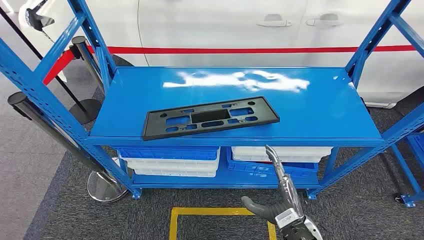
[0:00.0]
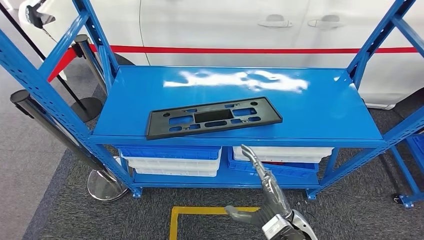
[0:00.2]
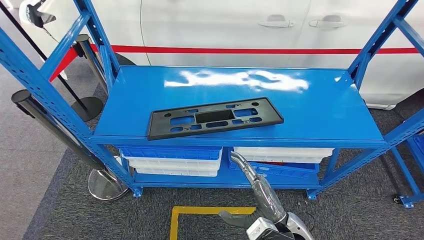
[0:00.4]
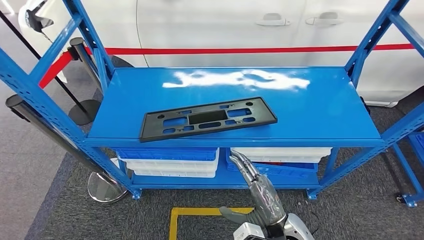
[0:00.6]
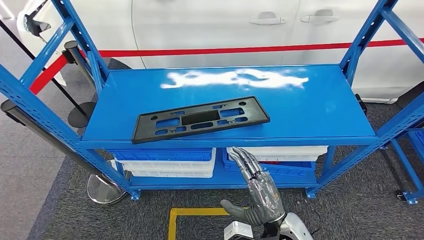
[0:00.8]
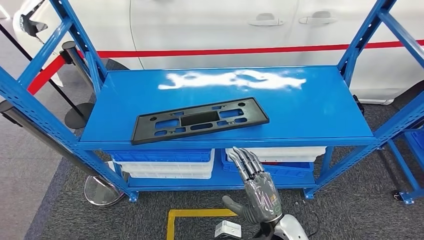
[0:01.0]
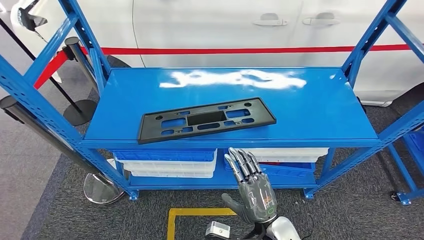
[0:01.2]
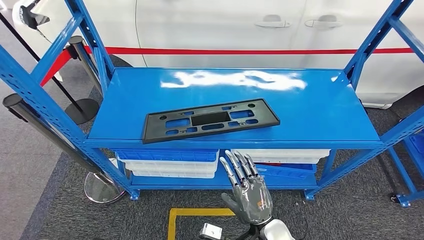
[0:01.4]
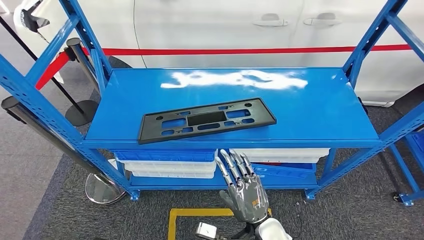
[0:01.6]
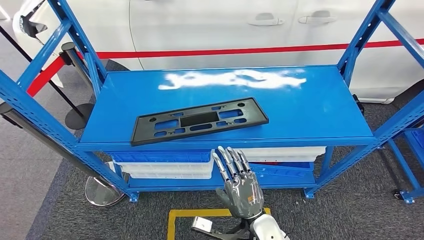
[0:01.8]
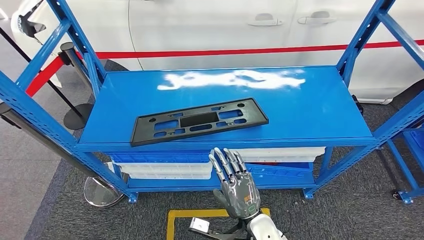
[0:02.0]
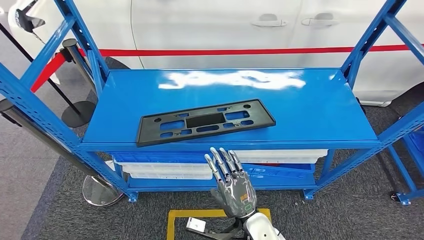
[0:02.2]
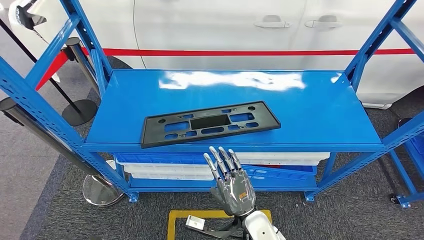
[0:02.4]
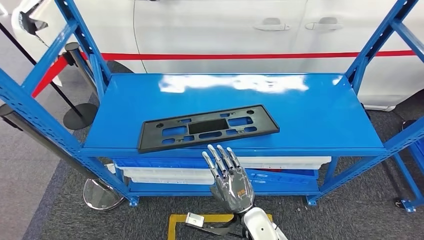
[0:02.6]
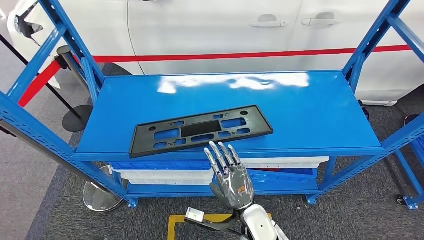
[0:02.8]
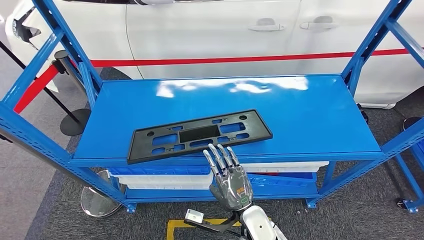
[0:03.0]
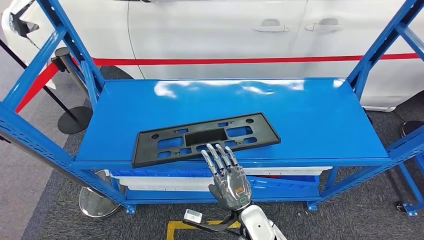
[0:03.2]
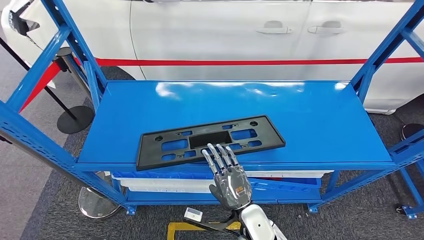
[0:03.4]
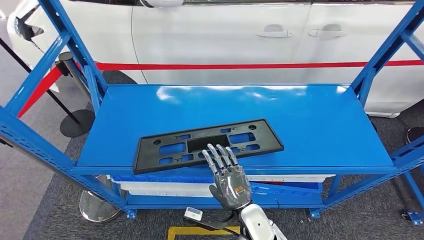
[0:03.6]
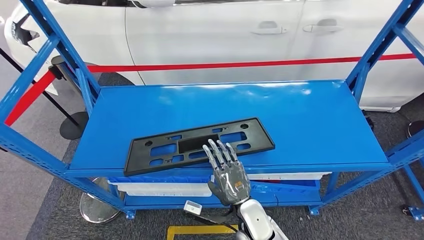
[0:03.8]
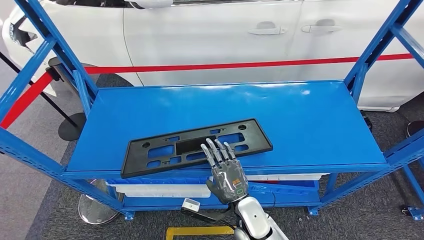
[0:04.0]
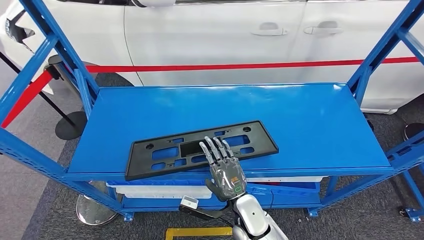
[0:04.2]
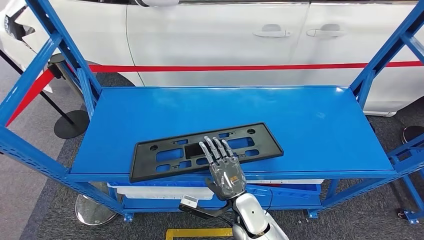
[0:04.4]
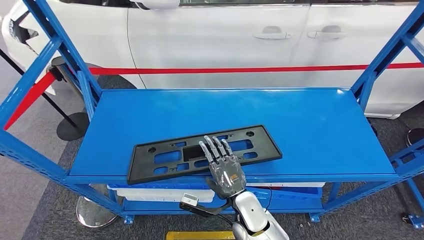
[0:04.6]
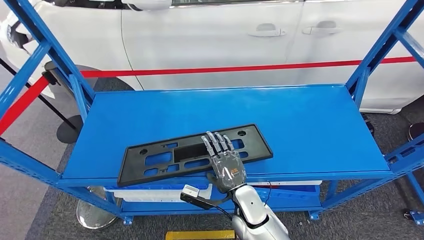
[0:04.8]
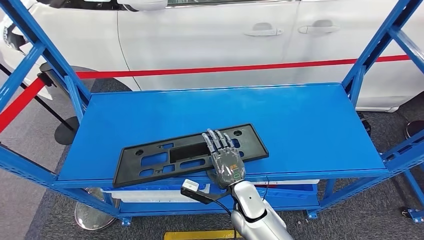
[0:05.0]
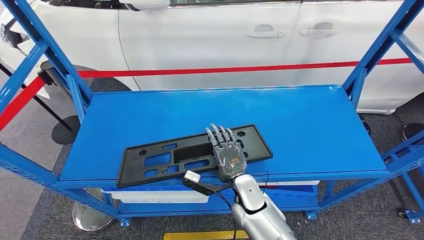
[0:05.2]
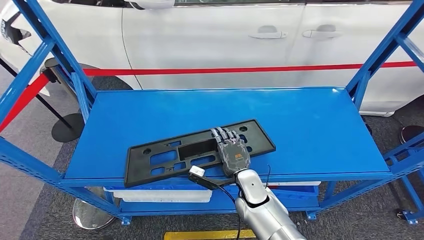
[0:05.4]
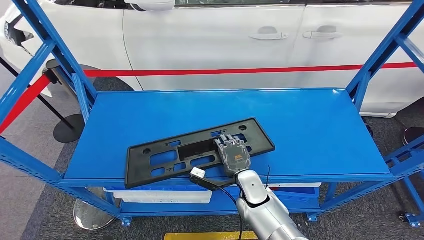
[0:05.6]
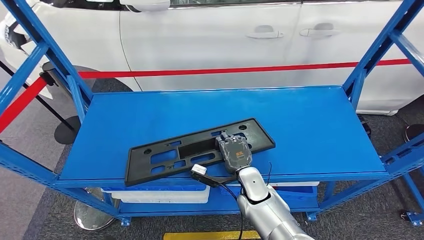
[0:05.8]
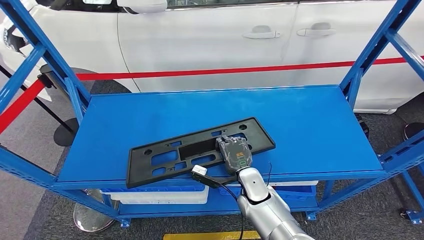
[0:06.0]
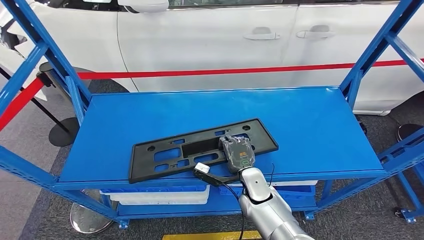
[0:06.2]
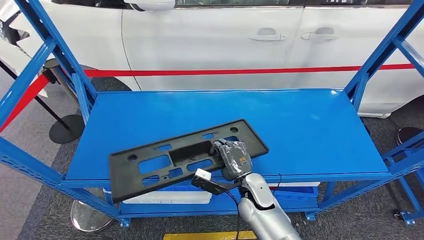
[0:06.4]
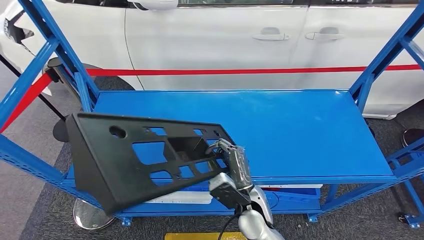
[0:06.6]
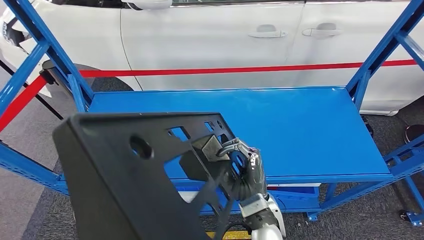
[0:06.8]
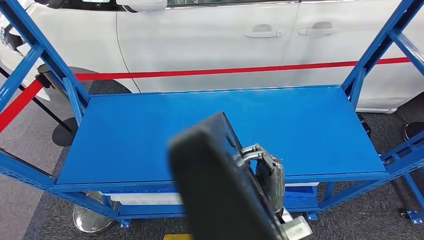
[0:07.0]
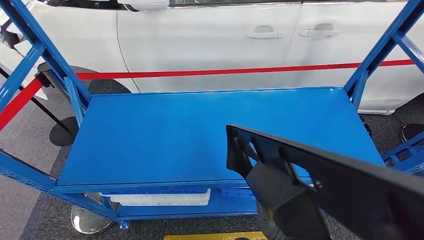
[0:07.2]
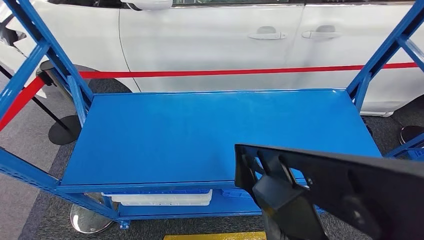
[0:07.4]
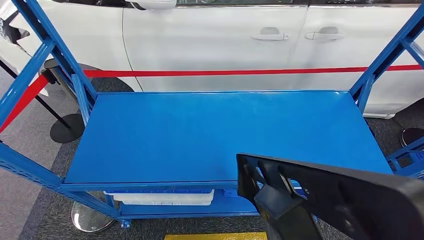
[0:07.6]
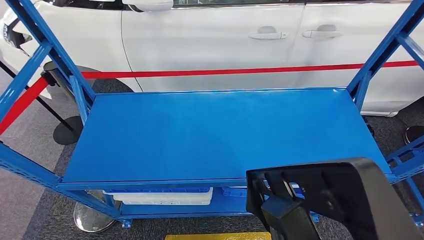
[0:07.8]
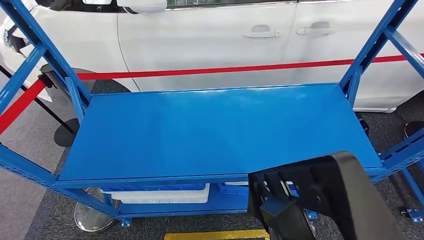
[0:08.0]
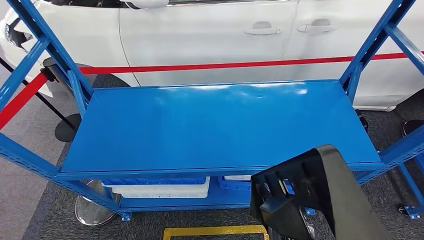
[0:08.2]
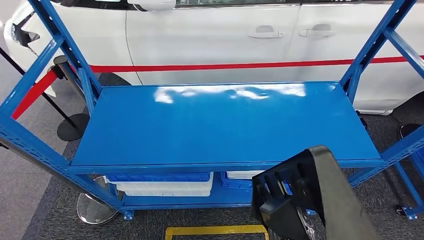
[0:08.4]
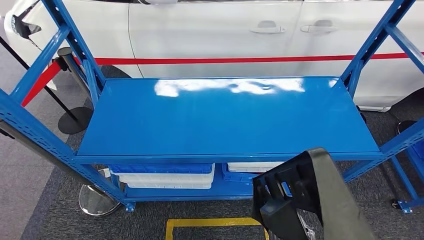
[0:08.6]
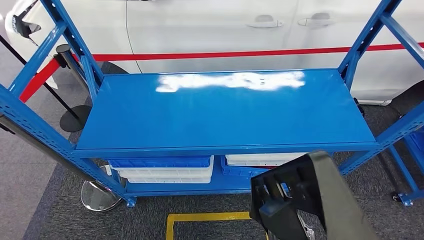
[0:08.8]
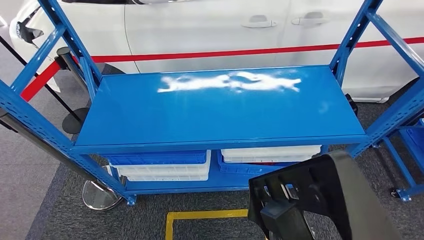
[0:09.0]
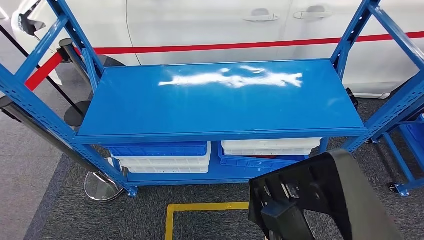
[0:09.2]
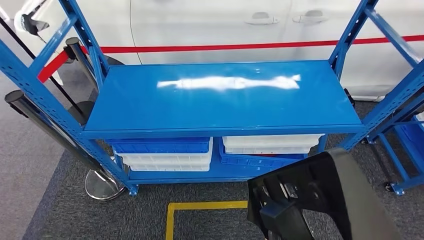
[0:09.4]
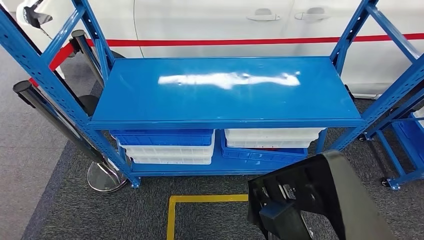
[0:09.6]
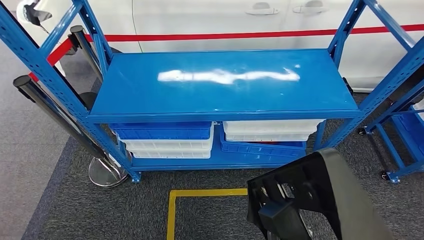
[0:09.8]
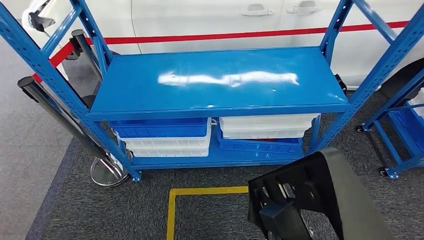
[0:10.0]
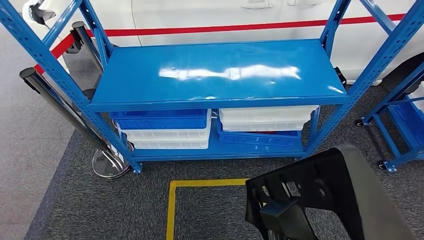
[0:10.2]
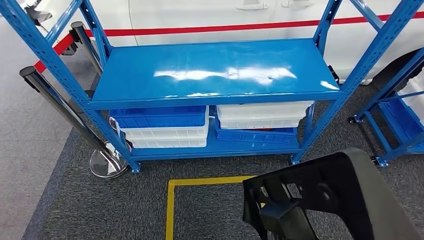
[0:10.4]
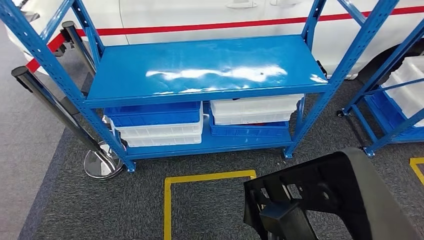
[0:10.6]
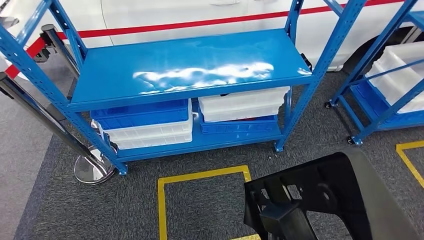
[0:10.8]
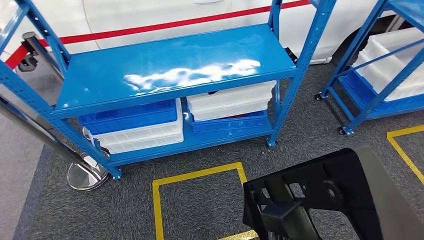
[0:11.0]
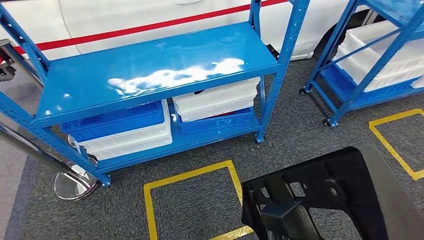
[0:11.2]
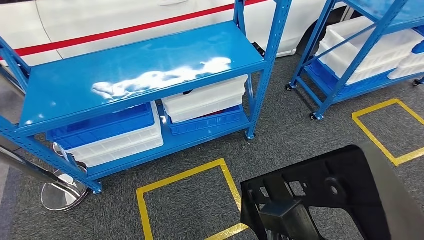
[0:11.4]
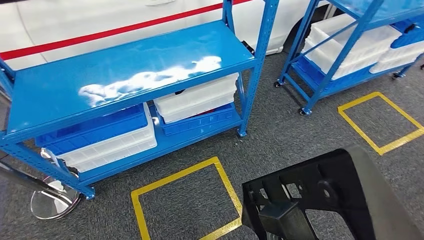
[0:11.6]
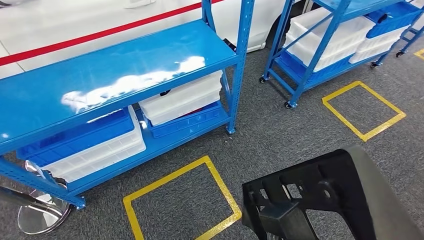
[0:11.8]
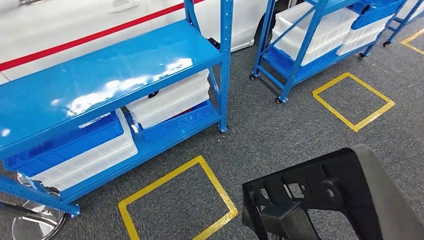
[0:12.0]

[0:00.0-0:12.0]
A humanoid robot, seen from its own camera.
Step, 0:00.0 to 0:08.0: Pick up the large material from the shelf.

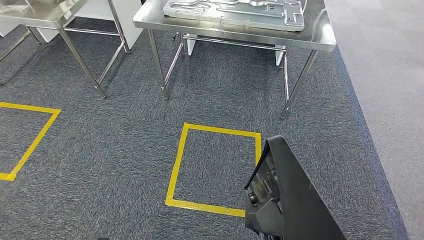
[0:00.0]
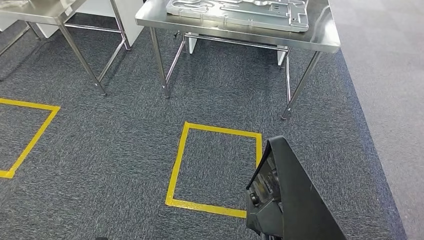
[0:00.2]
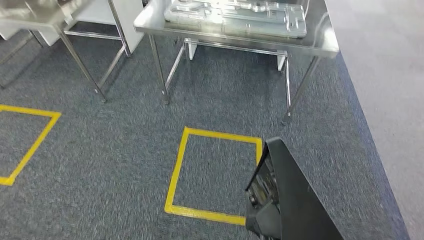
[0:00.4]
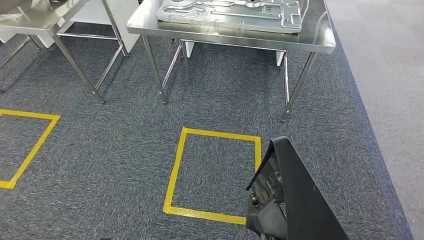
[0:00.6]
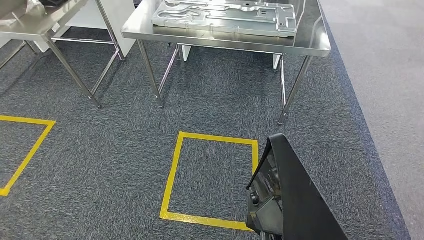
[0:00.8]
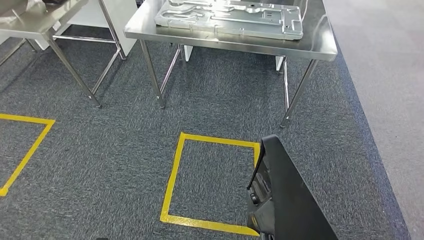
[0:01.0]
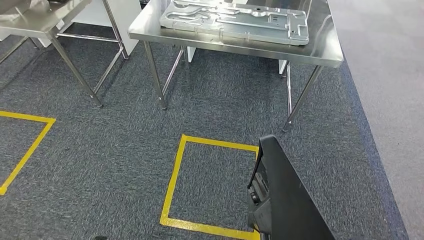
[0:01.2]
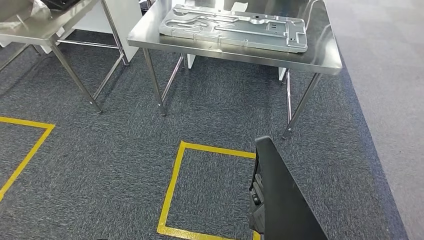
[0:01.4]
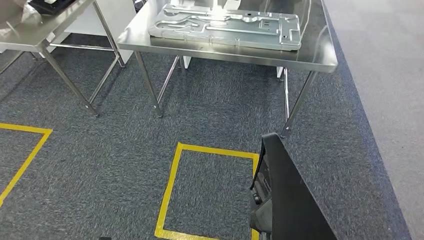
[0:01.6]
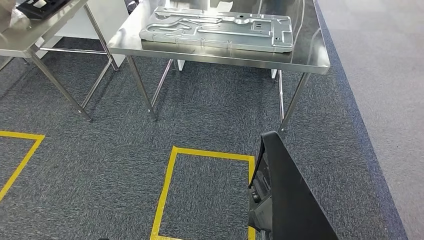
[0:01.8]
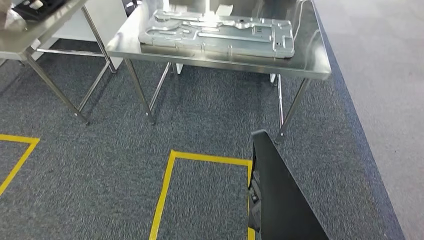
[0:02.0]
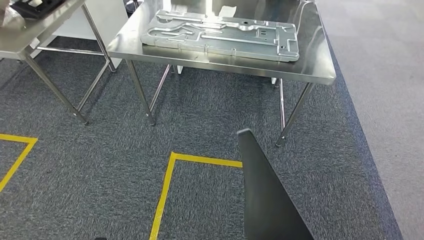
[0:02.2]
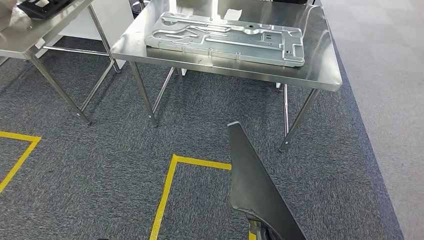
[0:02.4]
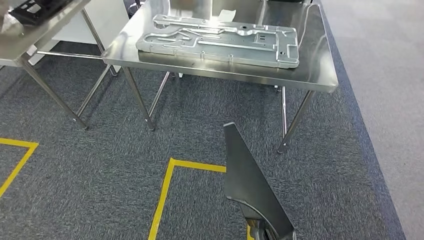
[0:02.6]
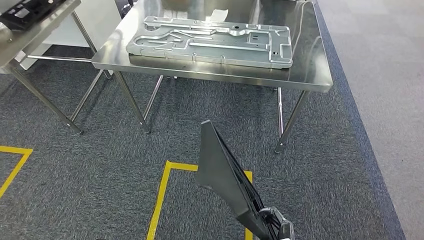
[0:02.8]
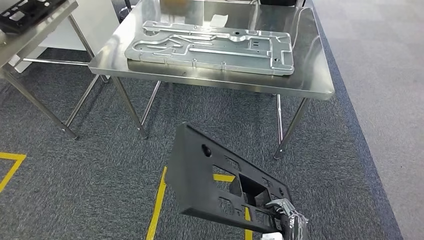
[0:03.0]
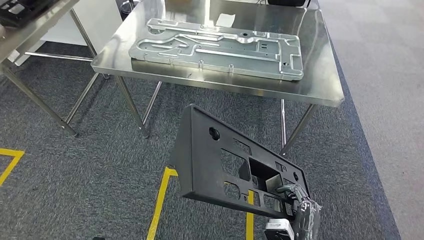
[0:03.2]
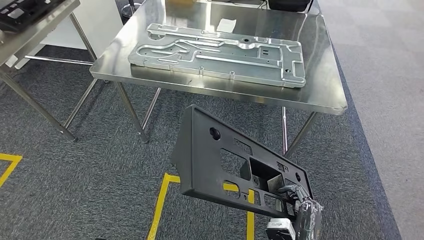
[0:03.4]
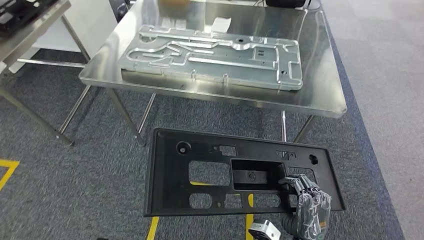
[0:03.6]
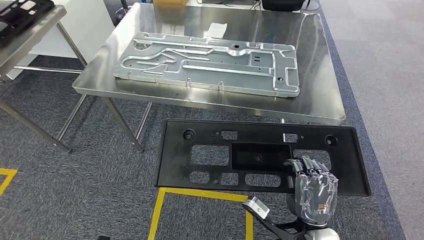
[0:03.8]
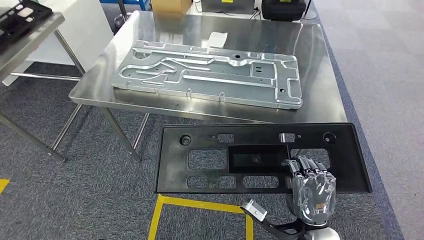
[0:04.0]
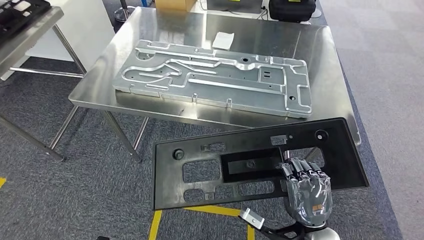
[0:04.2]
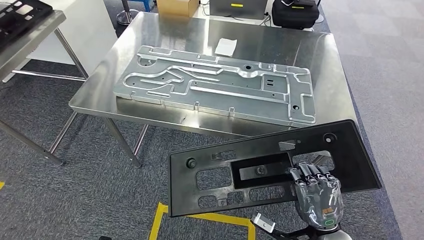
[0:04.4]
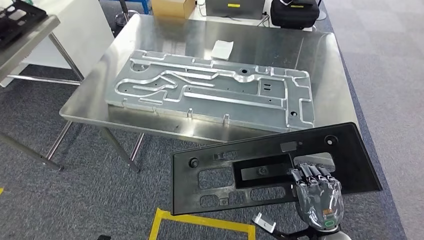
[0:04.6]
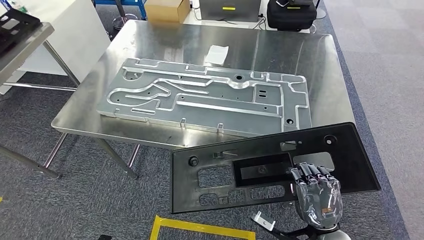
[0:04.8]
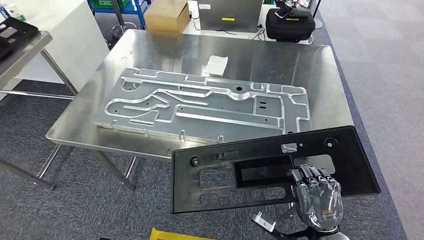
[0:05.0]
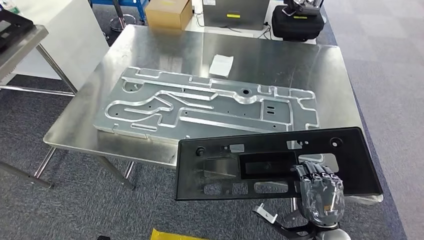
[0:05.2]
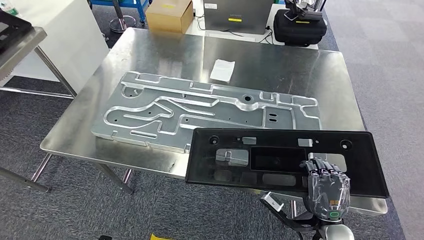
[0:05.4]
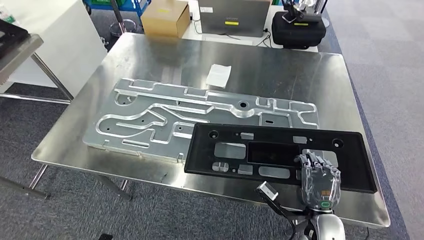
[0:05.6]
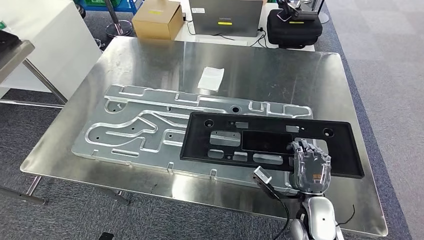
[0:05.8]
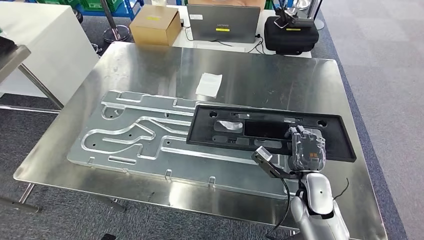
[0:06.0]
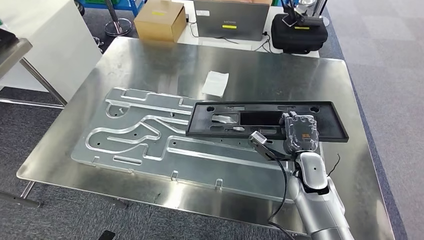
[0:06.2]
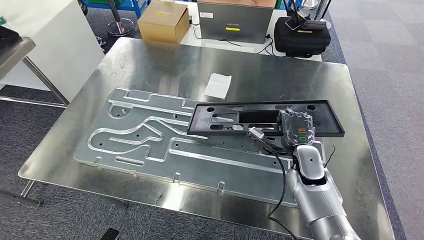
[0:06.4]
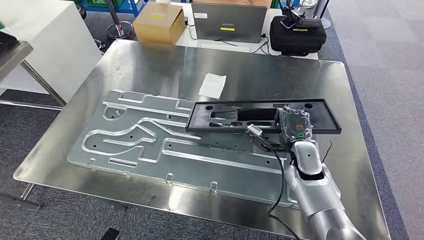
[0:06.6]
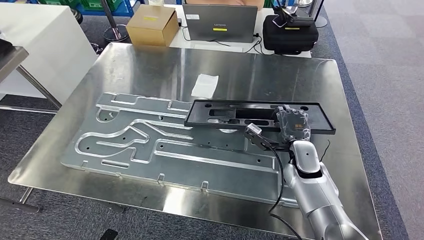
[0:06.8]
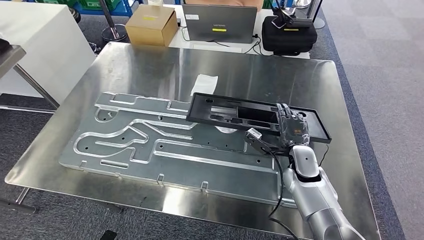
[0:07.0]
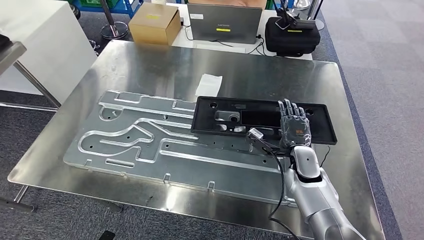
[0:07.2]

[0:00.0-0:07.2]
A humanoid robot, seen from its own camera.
Step, 0:00.0 to 0:05.4: Move the large material to the workbench.
